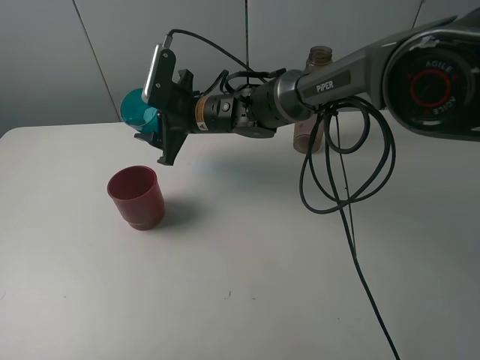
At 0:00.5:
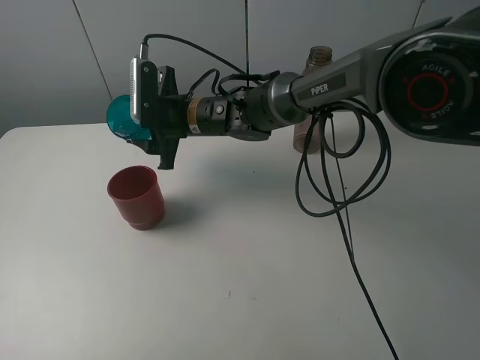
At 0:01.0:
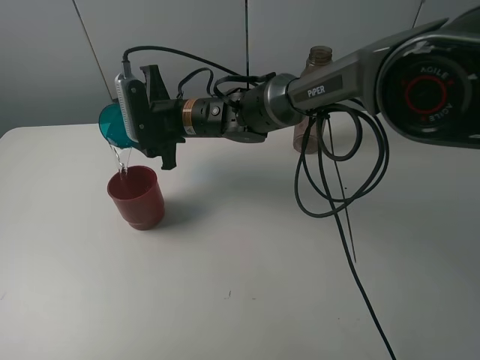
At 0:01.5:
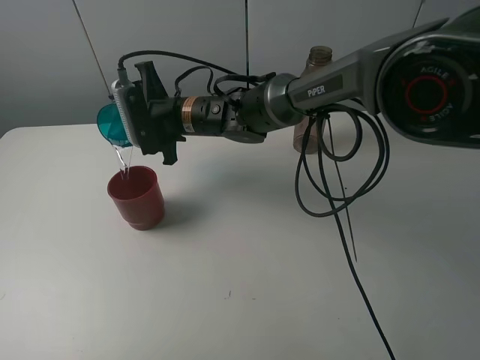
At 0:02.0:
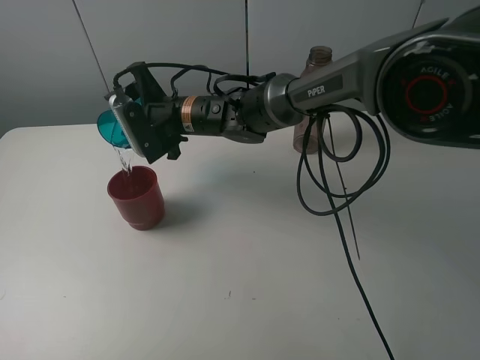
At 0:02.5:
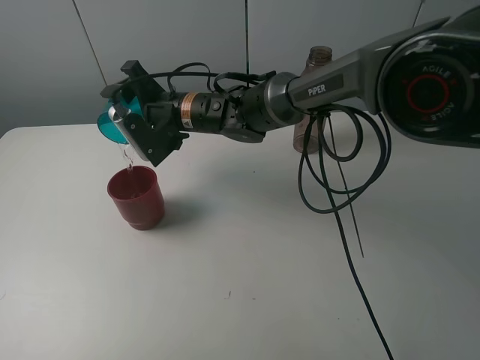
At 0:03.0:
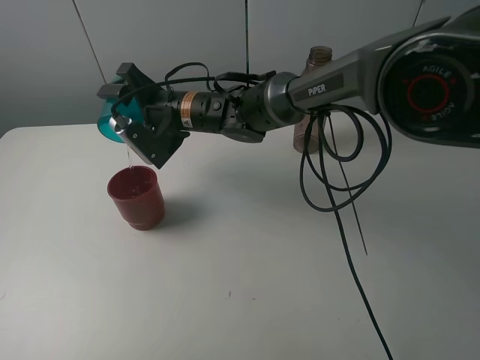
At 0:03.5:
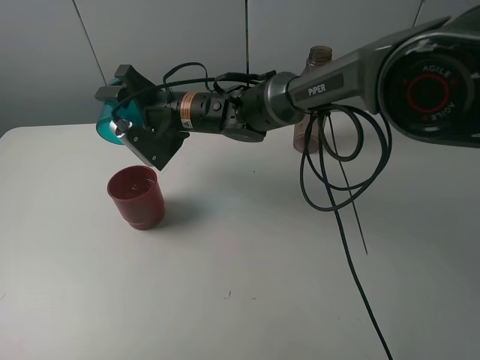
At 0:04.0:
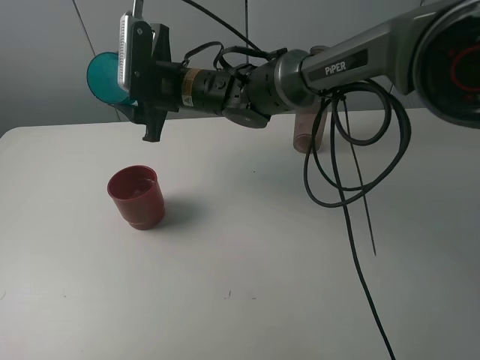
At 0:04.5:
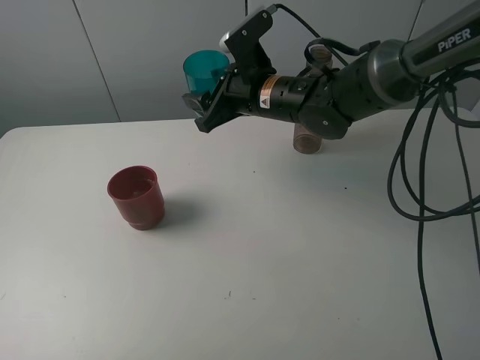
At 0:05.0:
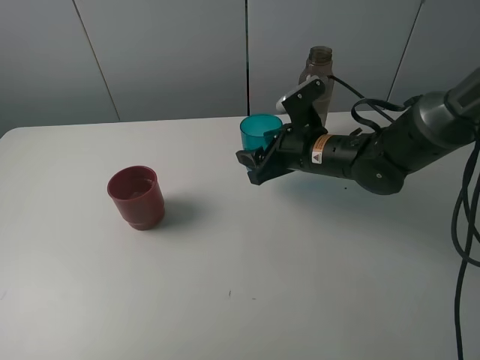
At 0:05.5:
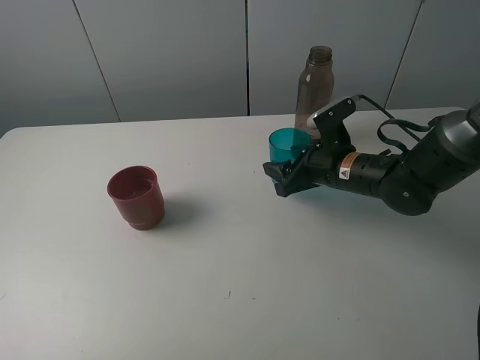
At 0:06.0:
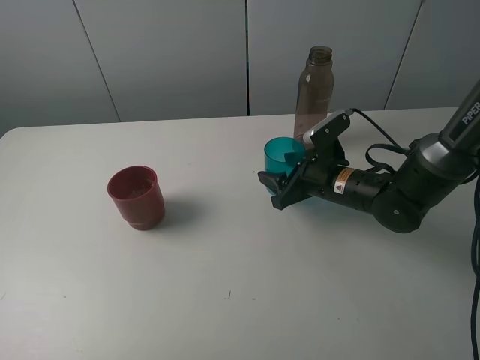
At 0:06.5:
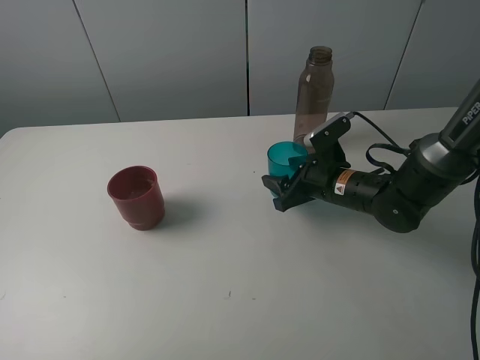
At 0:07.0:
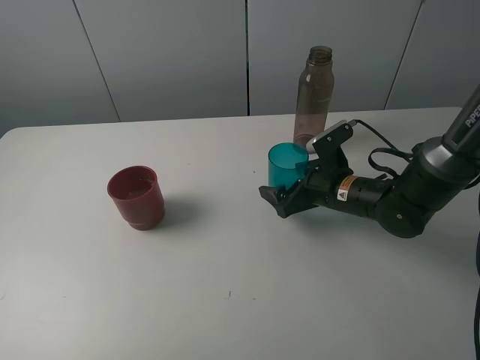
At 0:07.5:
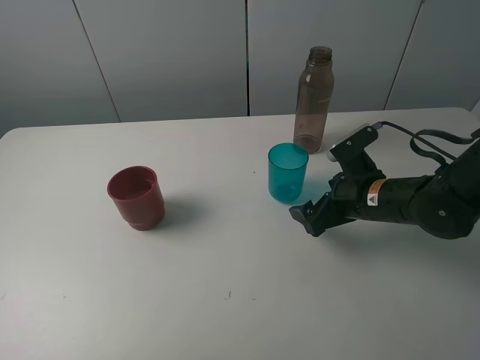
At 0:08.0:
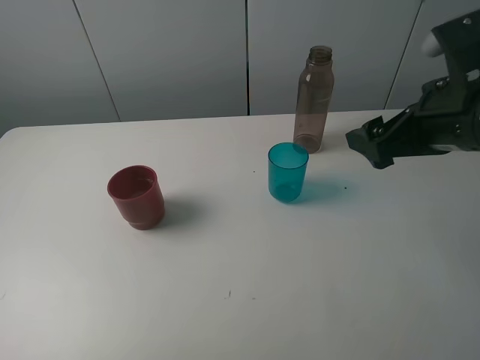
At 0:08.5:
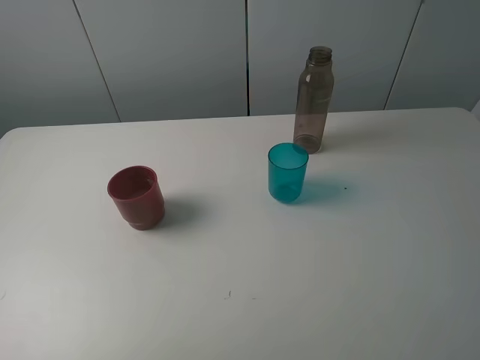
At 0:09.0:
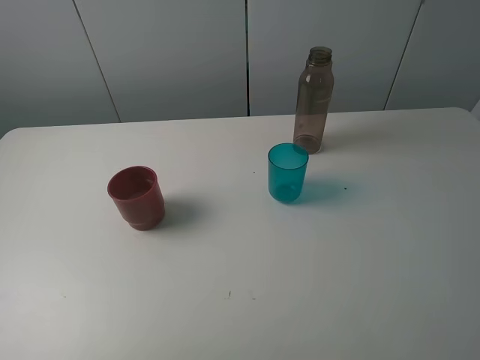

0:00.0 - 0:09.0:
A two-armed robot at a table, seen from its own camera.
Task of the whole recording: pick up the bottle and pour water into the cup, then pick up the cup containing water and pour it into another cup.
Step, 0:00.0 - 0:03.5: Pour water from blue cup to red cup with the right gripper.
Step, 0:04.0 - 0:07.0: Place the blue cup with the right gripper.
0:02.0 - 0:04.5: The right gripper travels to the right by some 10 cm.
0:04.5 - 0:07.0: The right gripper heads downward, to the right and backward, covering roughly 20 cm, and opens up.
0:07.0 - 0:09.0: The right gripper shifts about 40 cm backward, upward and to the right.

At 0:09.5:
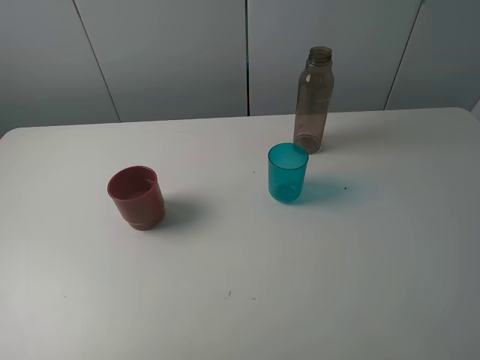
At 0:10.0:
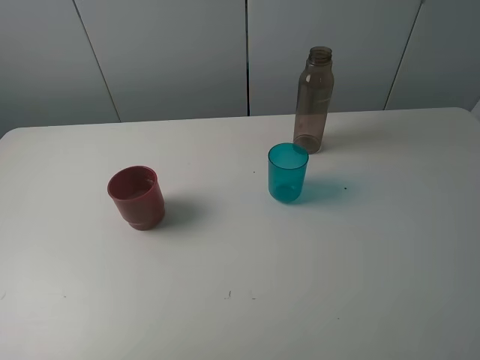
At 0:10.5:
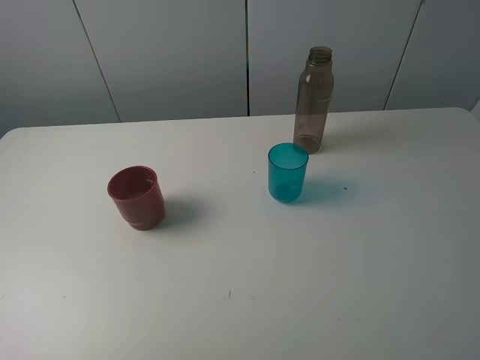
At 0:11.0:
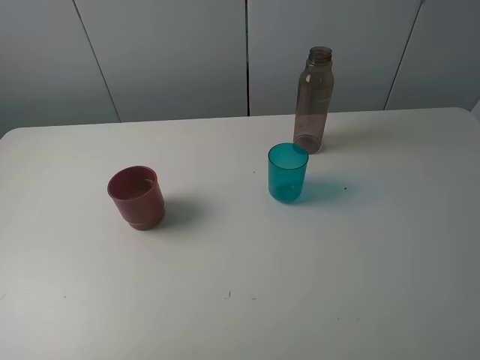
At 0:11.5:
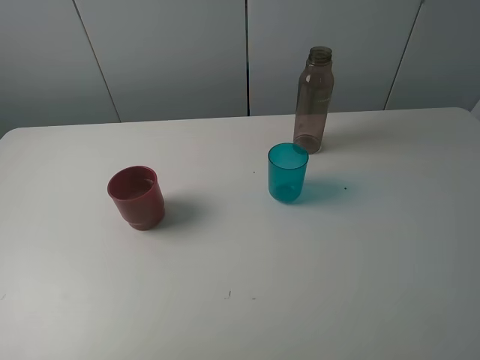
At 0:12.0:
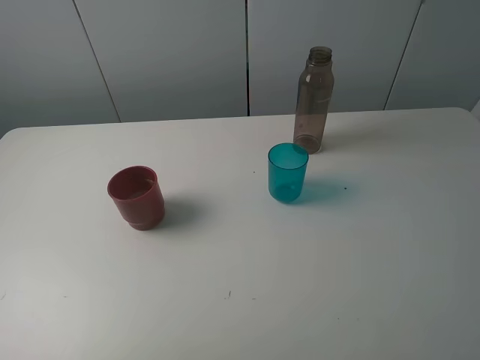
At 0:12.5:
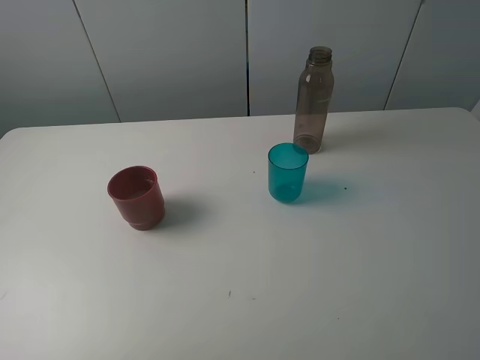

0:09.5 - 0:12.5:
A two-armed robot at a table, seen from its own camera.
Task of the whole recording: pick up the bottle and pour water into the cup, then pick up the cup containing water and pour it into another cup.
0:11.0 - 0:12.5: The two grippers keep their place.

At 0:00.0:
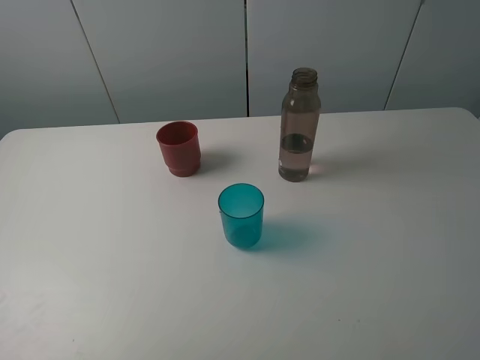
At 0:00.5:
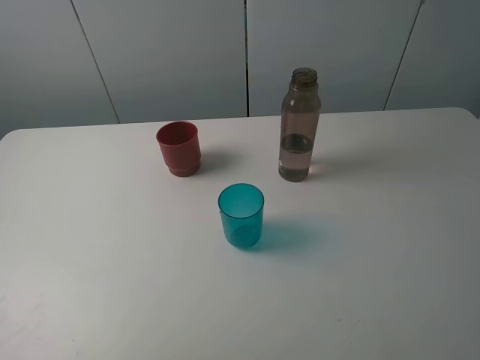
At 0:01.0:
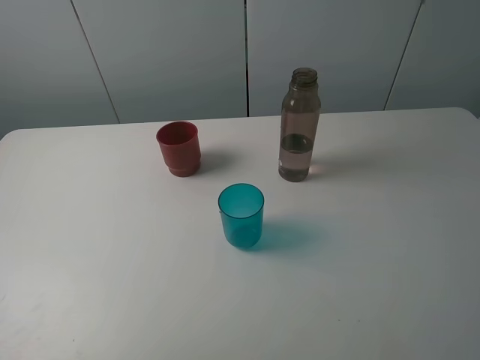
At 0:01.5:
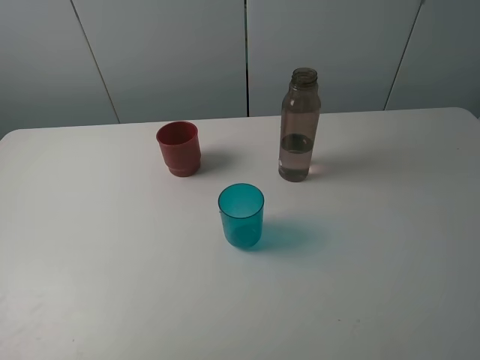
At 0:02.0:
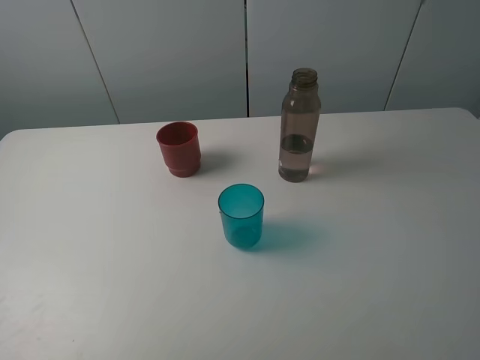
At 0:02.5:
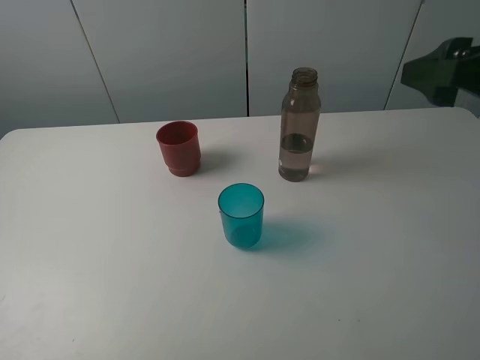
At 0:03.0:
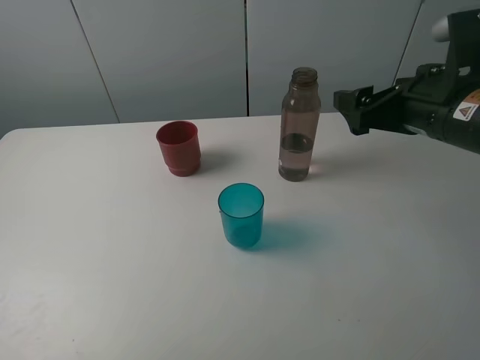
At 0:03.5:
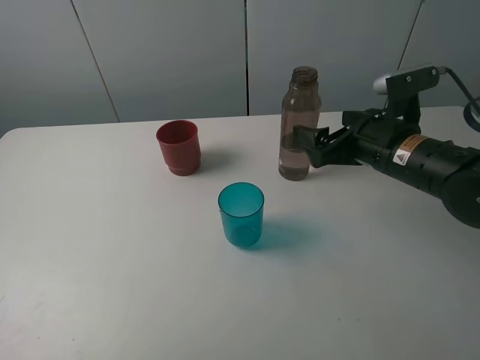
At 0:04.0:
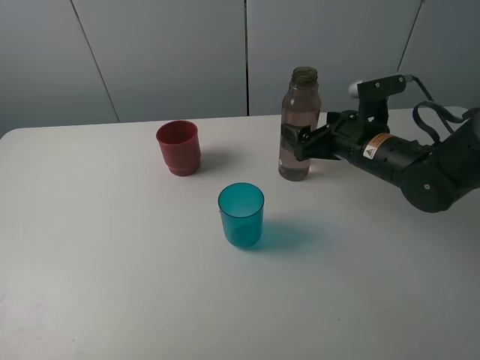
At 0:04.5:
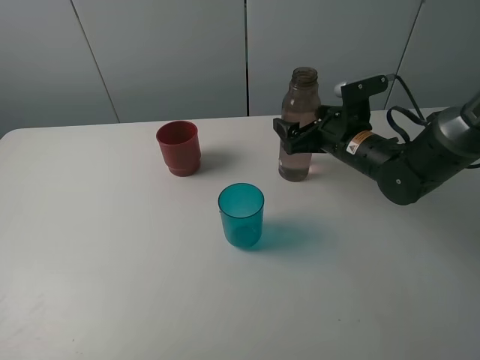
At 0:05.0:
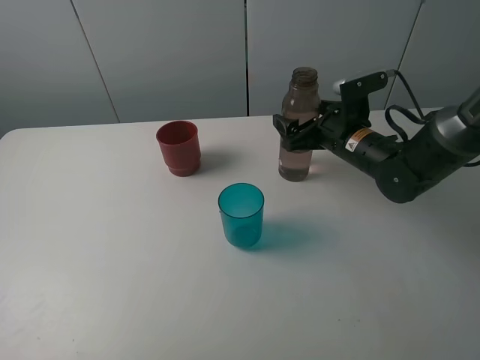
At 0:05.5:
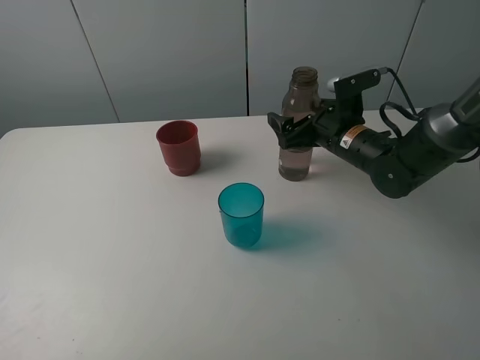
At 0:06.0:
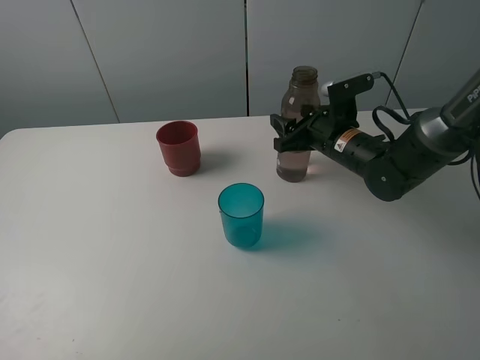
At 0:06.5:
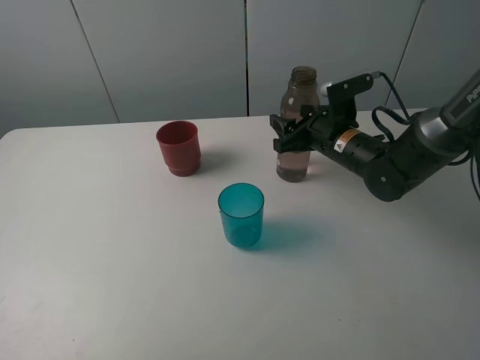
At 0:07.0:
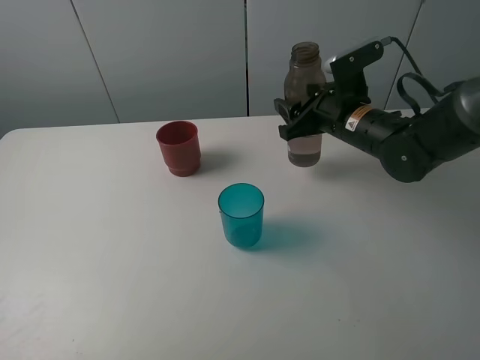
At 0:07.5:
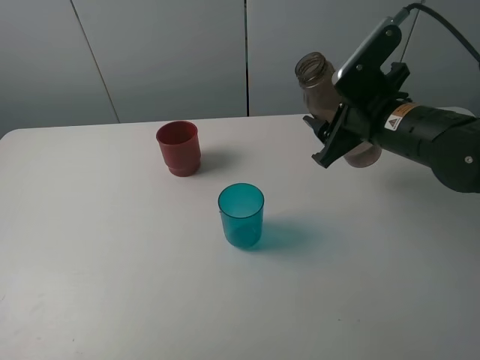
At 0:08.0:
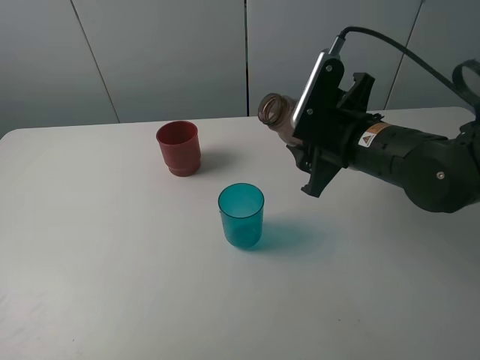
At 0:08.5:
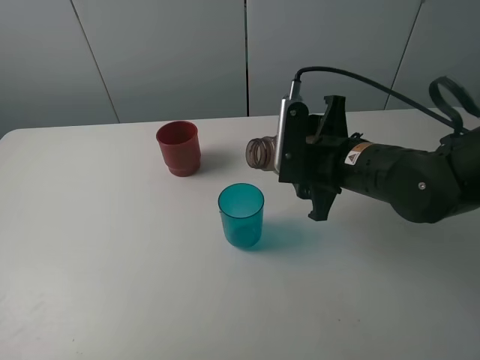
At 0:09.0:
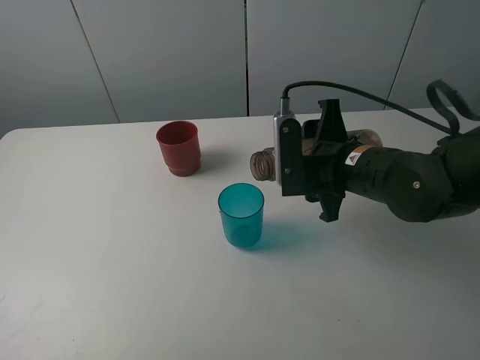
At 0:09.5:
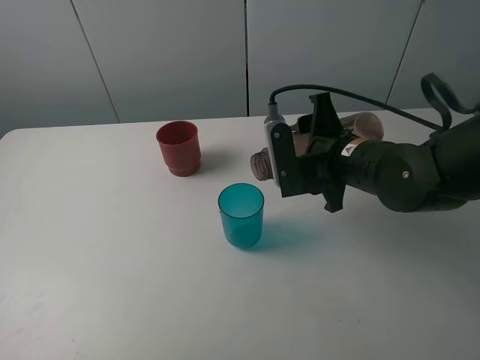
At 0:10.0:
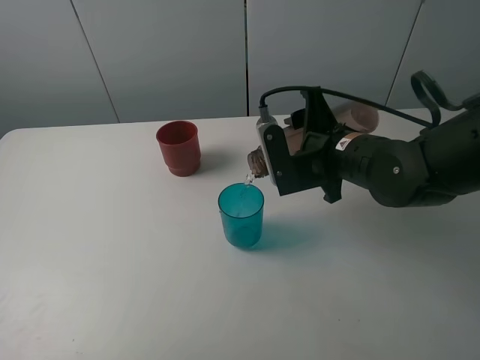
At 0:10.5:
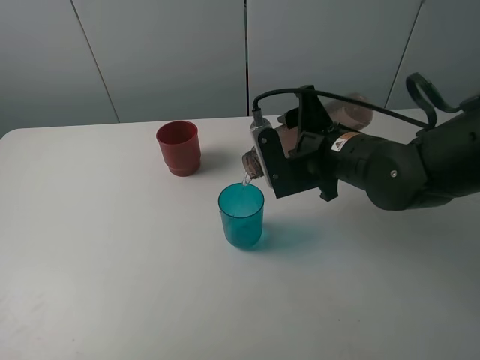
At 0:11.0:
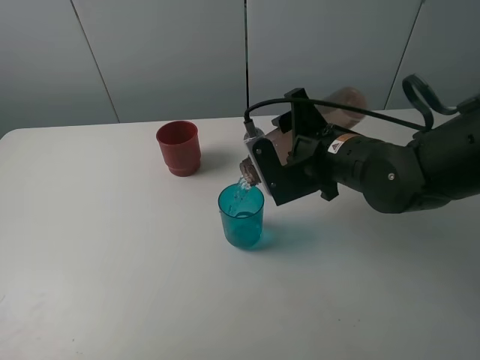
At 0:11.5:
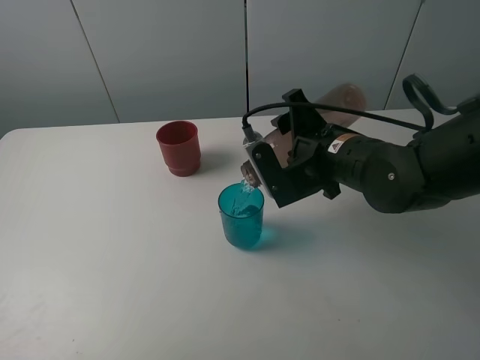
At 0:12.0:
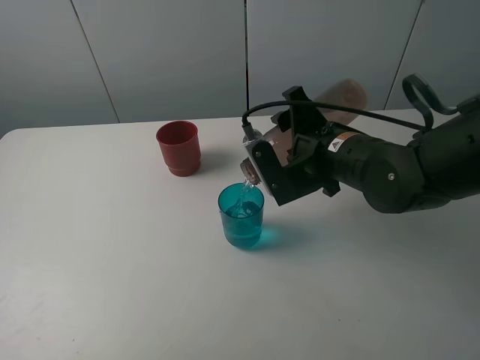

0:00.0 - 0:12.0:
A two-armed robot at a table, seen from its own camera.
Task of the whole recording: pick up the bottle and pour water into the cup, then pick up the cup containing water and pour it into another cup.
Step, 0:00.0 - 0:06.0: Grasp the brown bottle with the right gripper.
0:02.0 - 0:04.0: The right gripper shifts some 30 cm forward and downward.
0:04.0 - 0:06.0: The right gripper moves some 5 cm, and closes.
0:06.0 - 0:08.0: The right gripper goes roughly 10 cm backward and upward.
0:10.0 - 0:12.0: The grippers make only small movements.

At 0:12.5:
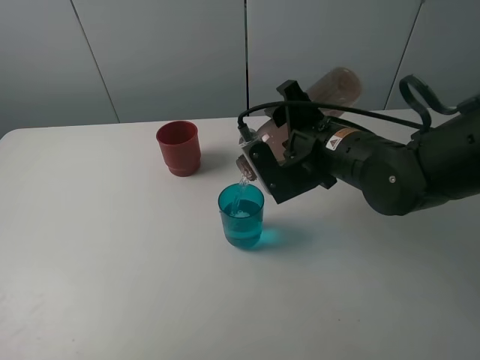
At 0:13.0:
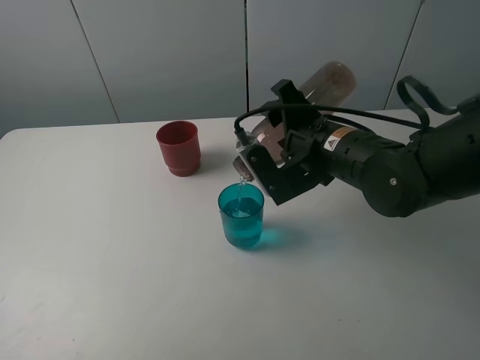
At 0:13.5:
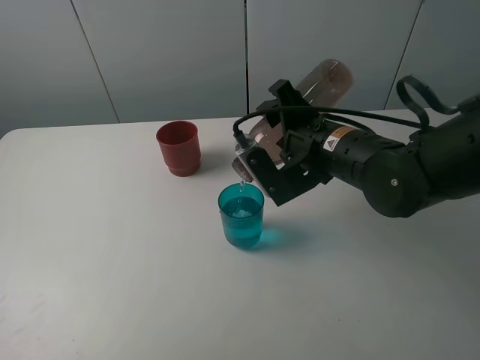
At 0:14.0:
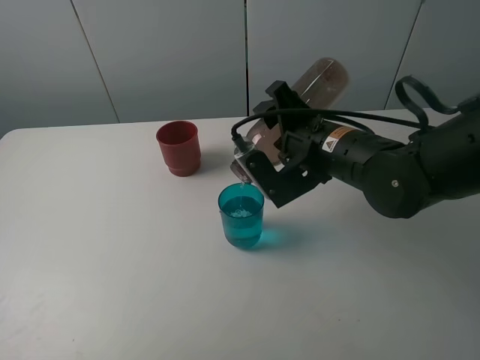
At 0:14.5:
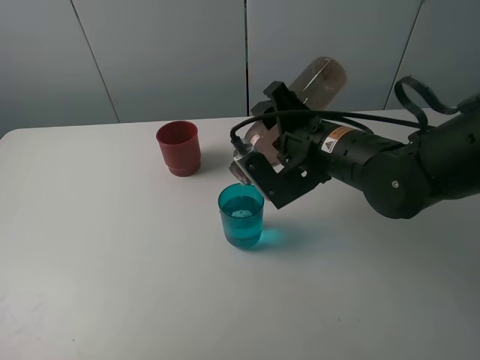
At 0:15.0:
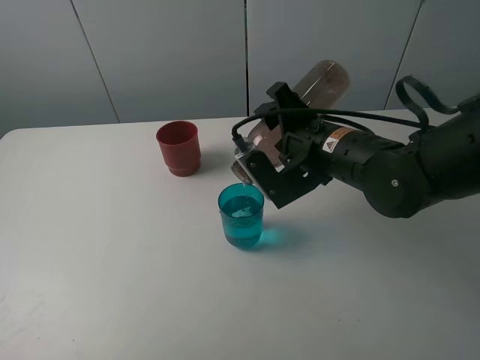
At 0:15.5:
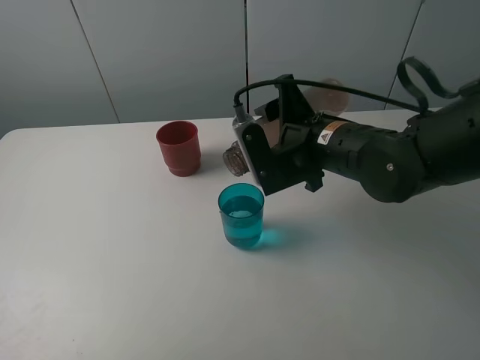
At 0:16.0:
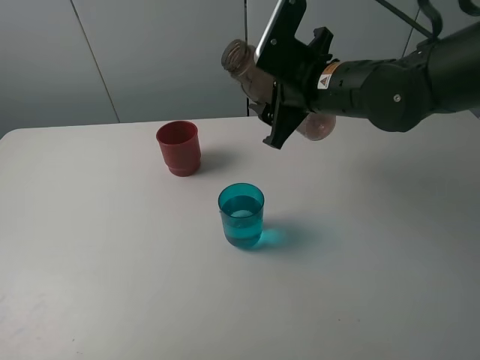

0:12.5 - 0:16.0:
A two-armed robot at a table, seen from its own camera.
Task of the whole recording: pick up the bottle and pour water into the cup, then pick up the cup containing water and pour it into another cup.
0:12.5 - 0:14.5: The grippers make only small movements.
0:14.5 - 0:16.0: The right gripper travels forward by about 5 cm.
